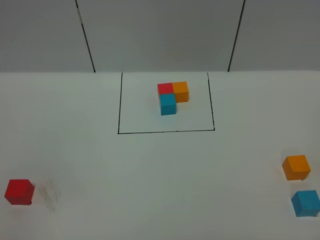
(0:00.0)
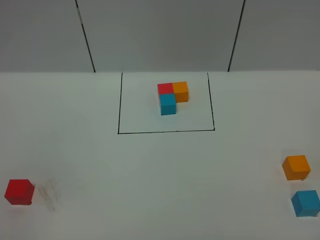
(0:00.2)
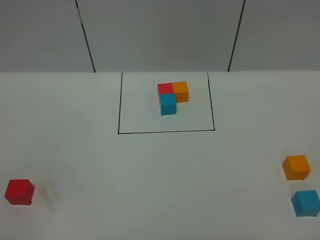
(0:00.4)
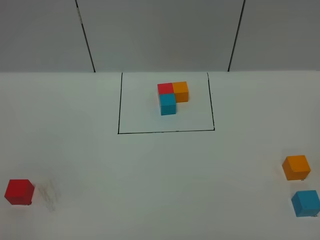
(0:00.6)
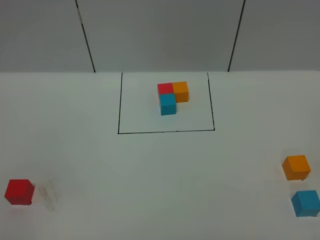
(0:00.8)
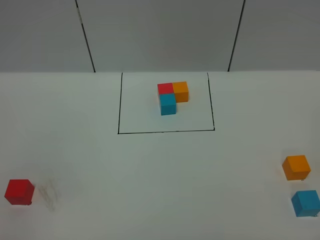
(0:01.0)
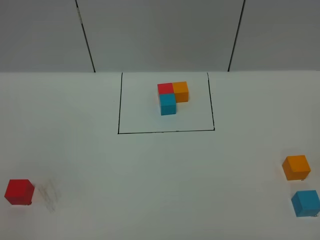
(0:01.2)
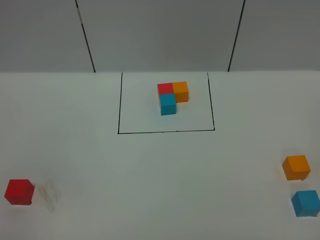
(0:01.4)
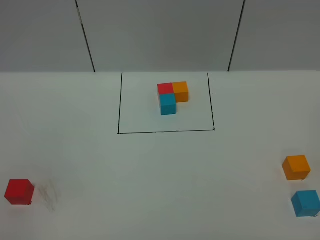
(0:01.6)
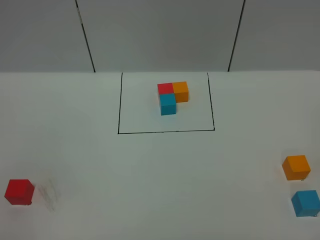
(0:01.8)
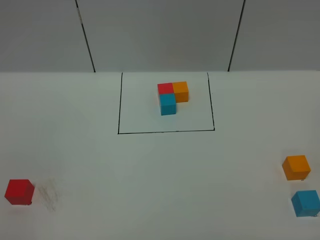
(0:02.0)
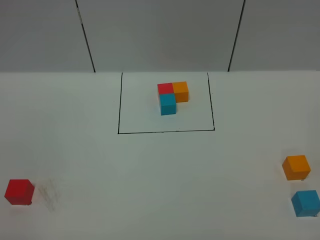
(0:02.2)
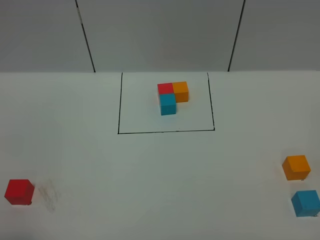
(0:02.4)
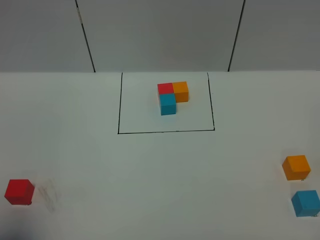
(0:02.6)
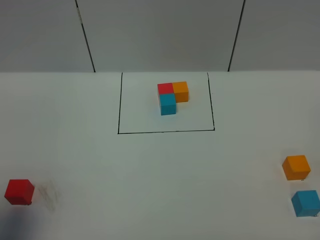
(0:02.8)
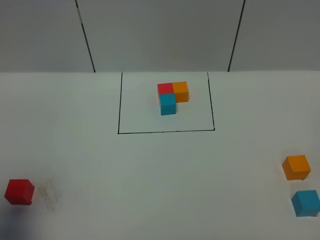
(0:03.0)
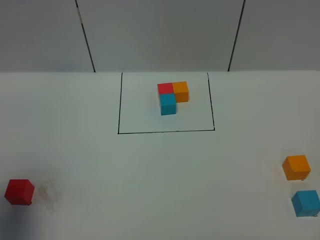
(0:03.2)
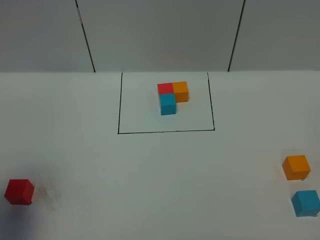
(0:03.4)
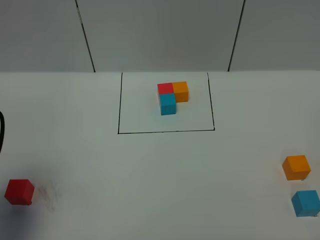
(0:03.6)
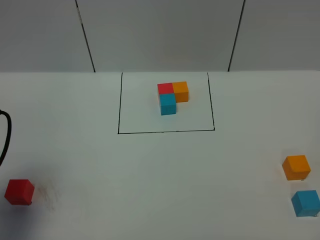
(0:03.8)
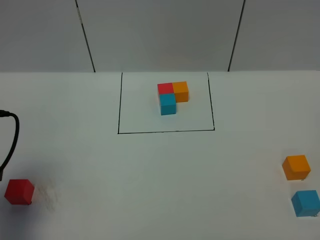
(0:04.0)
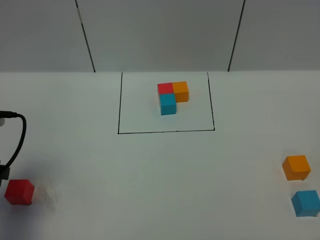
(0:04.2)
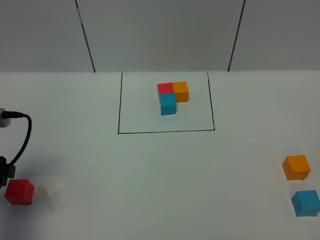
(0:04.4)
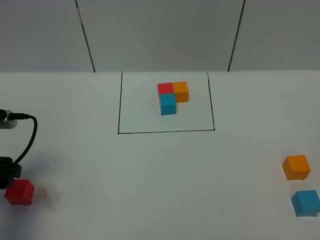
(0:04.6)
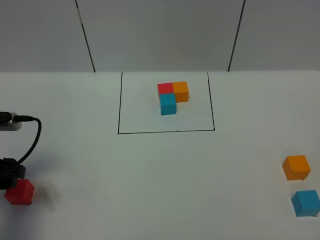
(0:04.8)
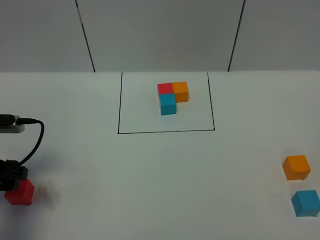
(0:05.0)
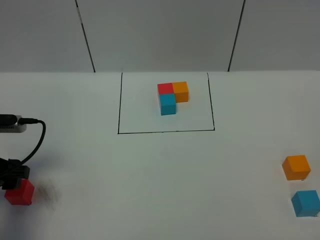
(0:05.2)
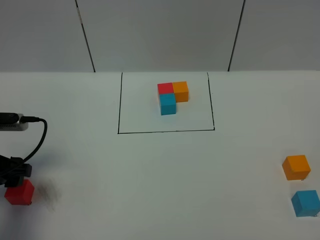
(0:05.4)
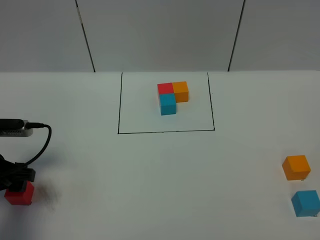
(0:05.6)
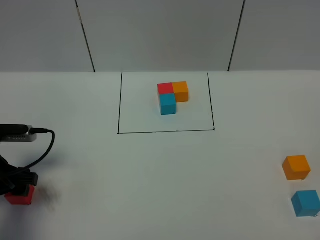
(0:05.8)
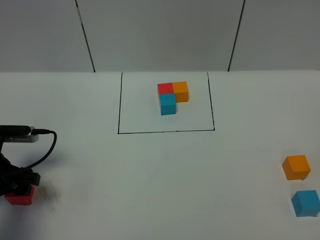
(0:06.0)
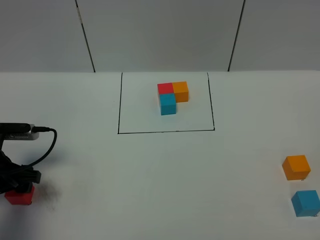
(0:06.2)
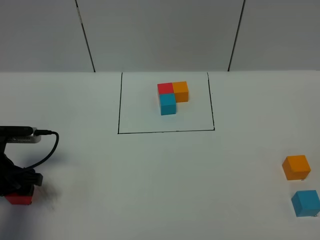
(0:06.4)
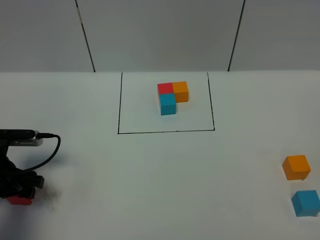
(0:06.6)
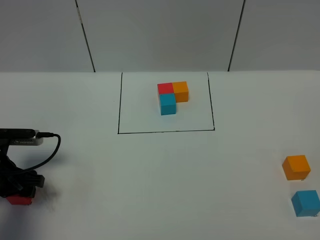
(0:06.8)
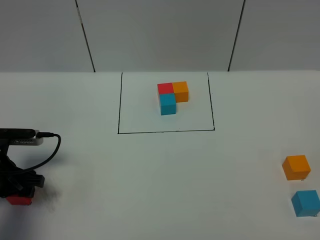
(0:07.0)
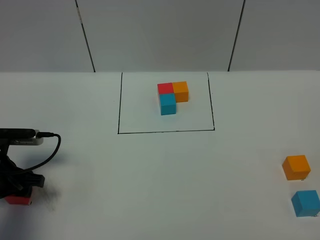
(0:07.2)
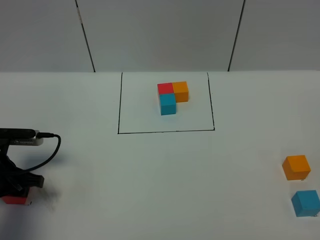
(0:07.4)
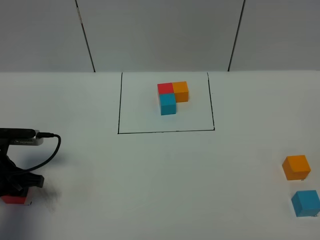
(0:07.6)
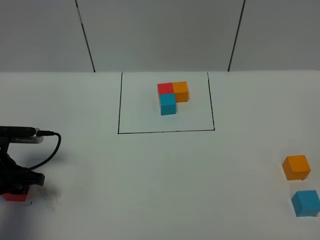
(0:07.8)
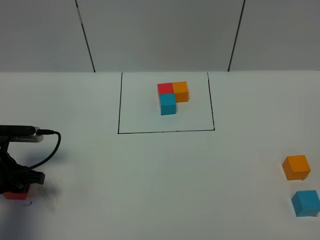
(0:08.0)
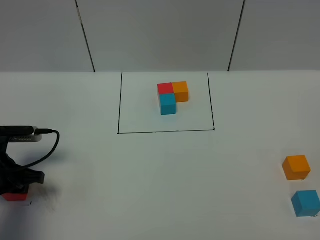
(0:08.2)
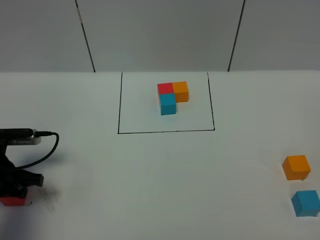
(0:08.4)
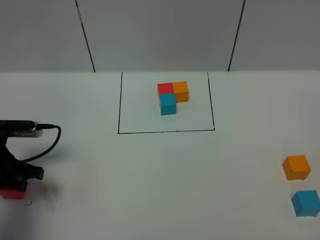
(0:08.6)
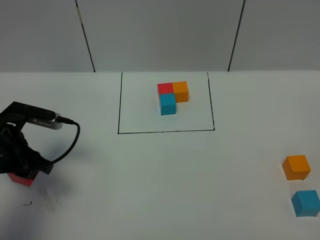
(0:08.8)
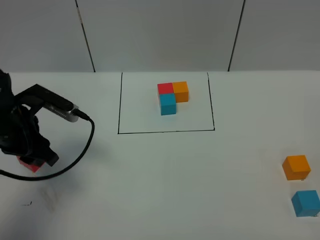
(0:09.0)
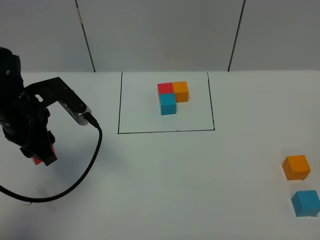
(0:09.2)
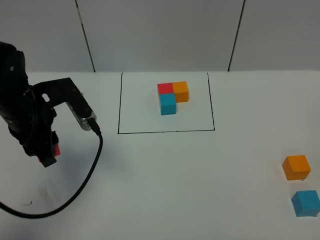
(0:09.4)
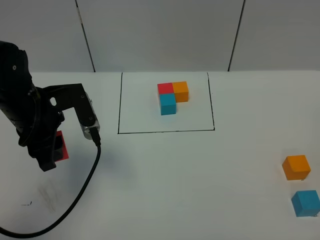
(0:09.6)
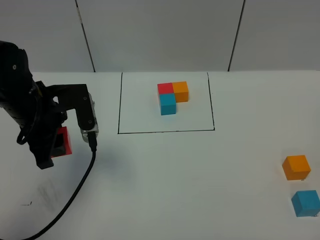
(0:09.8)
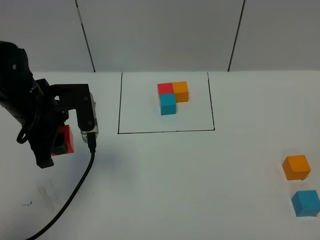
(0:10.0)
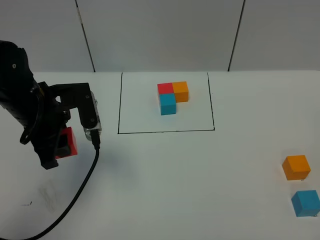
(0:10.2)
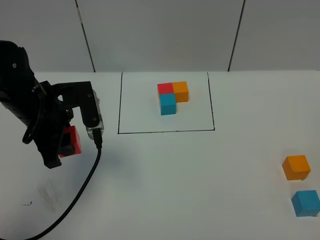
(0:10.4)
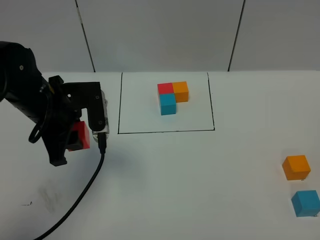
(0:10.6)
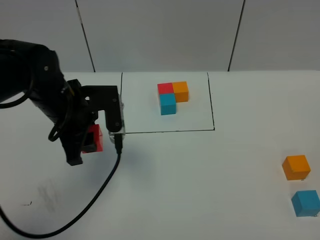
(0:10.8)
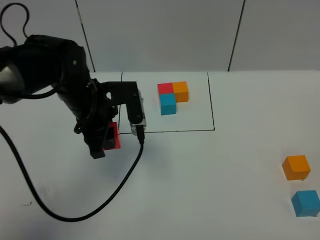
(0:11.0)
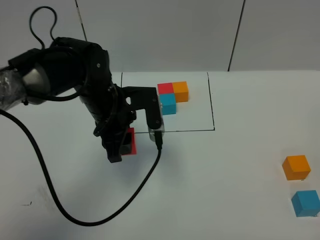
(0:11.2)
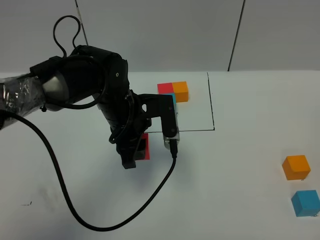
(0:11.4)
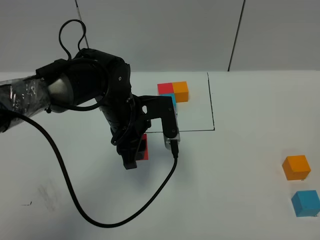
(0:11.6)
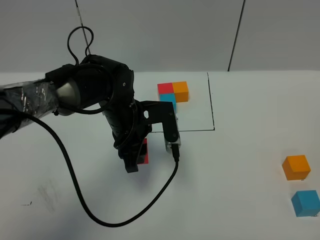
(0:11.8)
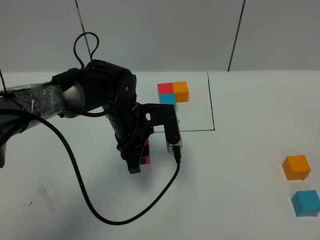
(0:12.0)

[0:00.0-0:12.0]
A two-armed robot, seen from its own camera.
Task of the whole recording: According to the building block template in front, assemble the scattered blocks together.
0:00.0 to 0:01.6: Both grippers stay about where they are.
0:01.6 to 0:03.0: The left gripper goes some 15 cm forward.
0:03.0 to 0:04.4: The left gripper heads downward and forward, covering roughly 10 cm.
0:04.4 to 0:06.0: The left gripper is displaced downward by approximately 10 cm.
0:06.0 to 0:07.6: The left gripper closes its fingers.
0:07.6 to 0:09.0: The left gripper shifts roughly 10 cm upward and to the right.
0:09.0 to 0:10.4: The left gripper ends up roughly 5 cm from where it was.
0:10.4 to 0:12.0: The left gripper is displaced to the right and downward by roughly 15 cm.

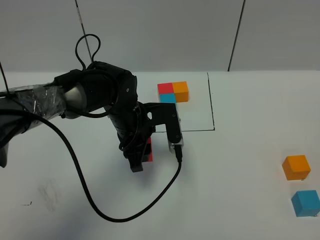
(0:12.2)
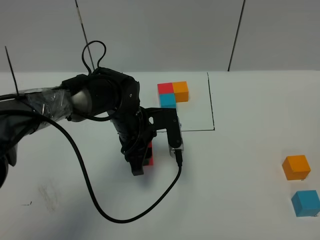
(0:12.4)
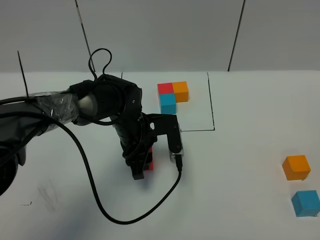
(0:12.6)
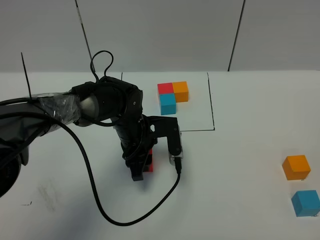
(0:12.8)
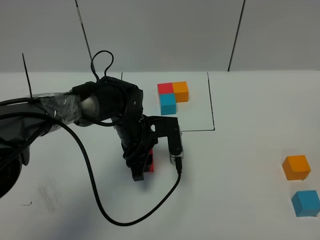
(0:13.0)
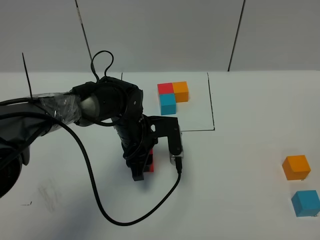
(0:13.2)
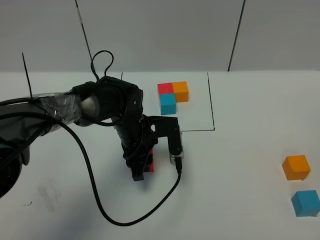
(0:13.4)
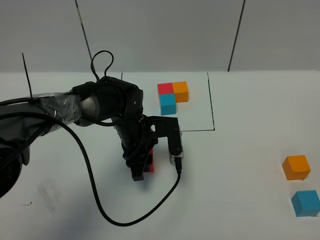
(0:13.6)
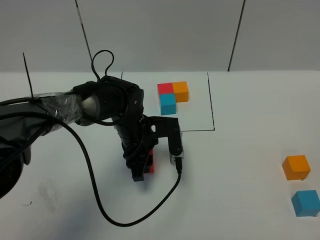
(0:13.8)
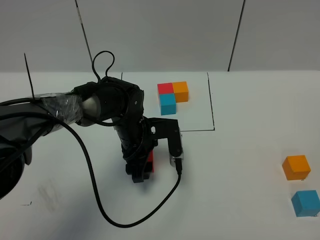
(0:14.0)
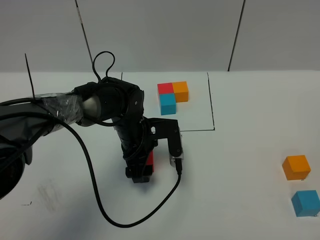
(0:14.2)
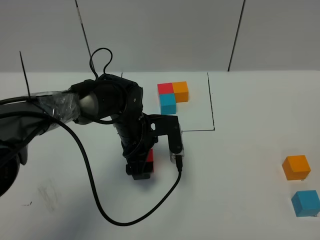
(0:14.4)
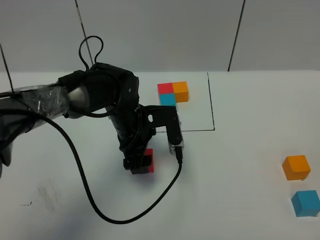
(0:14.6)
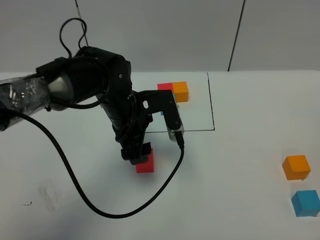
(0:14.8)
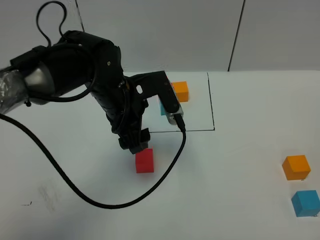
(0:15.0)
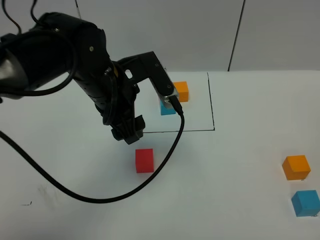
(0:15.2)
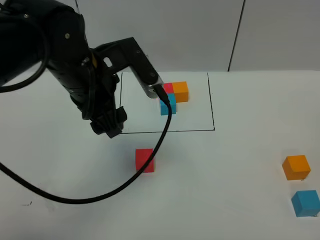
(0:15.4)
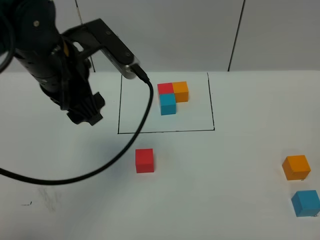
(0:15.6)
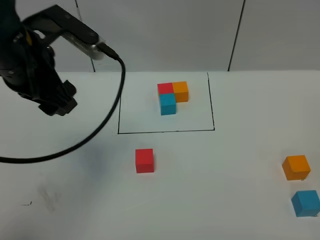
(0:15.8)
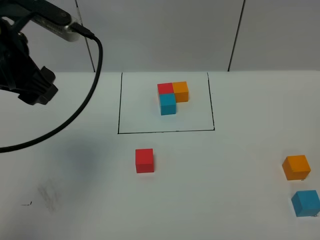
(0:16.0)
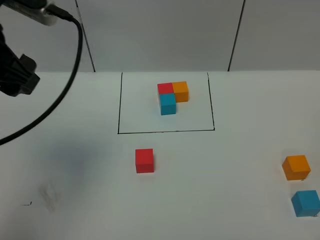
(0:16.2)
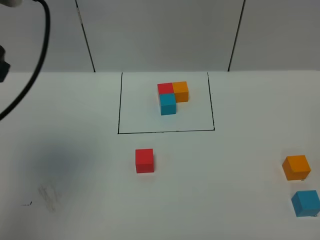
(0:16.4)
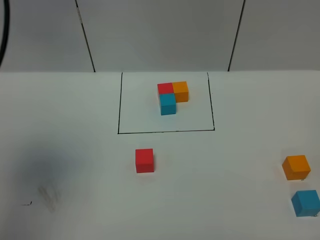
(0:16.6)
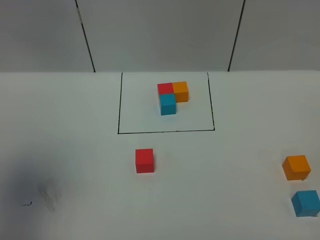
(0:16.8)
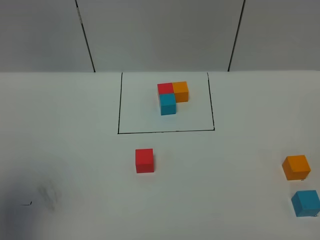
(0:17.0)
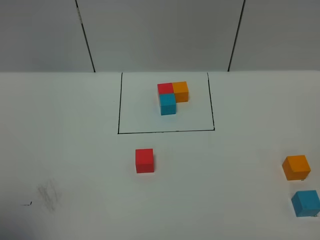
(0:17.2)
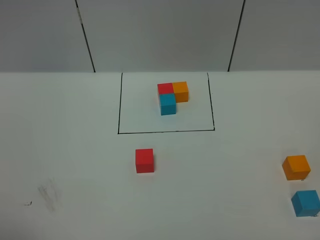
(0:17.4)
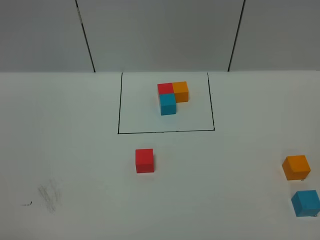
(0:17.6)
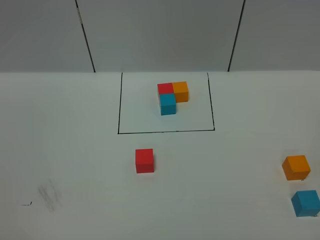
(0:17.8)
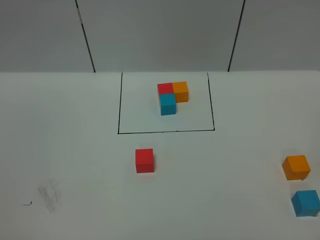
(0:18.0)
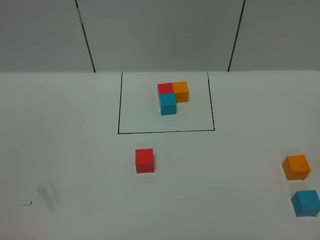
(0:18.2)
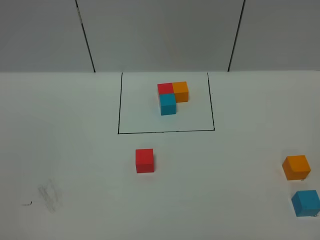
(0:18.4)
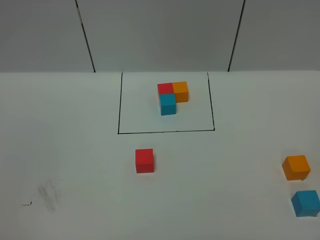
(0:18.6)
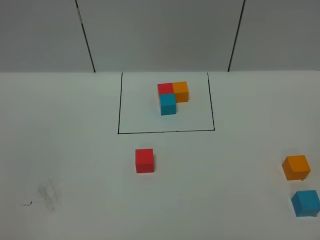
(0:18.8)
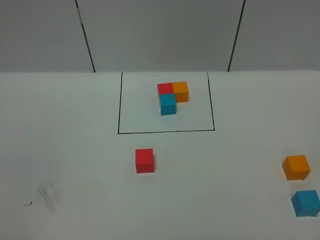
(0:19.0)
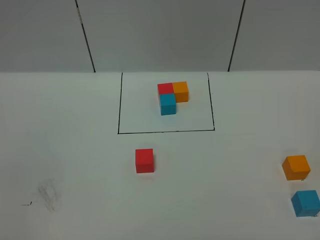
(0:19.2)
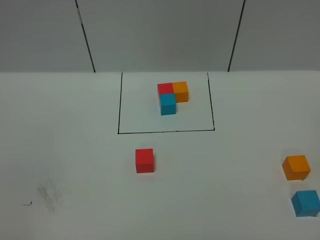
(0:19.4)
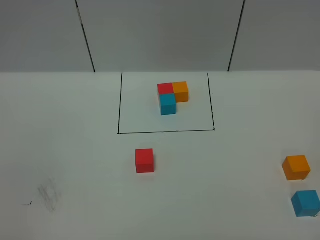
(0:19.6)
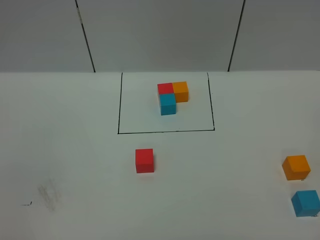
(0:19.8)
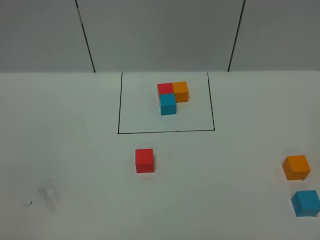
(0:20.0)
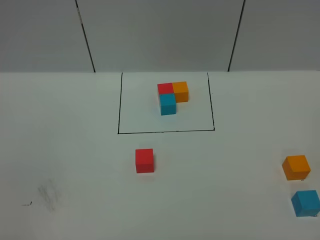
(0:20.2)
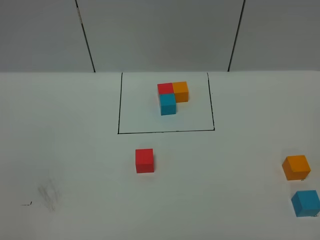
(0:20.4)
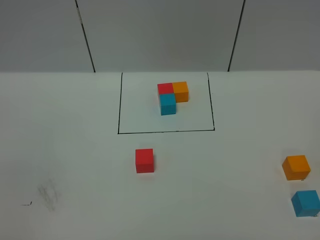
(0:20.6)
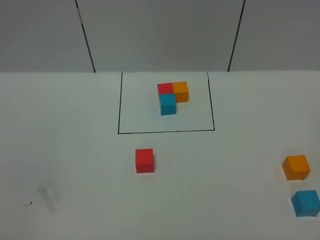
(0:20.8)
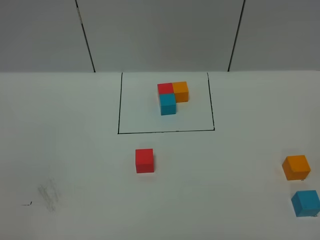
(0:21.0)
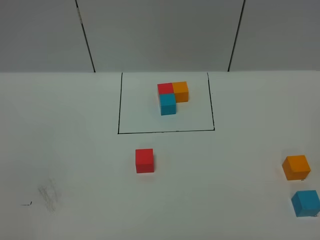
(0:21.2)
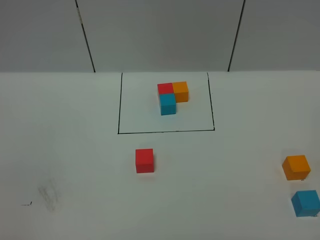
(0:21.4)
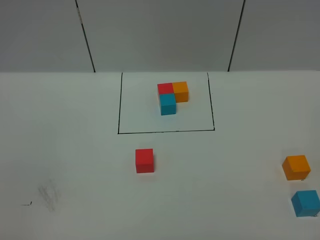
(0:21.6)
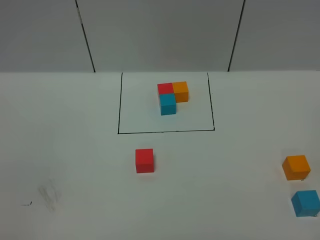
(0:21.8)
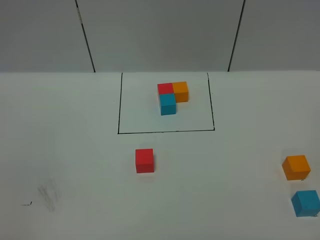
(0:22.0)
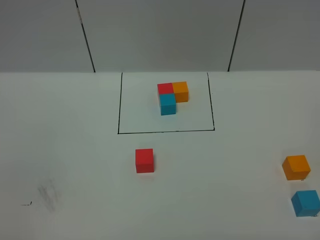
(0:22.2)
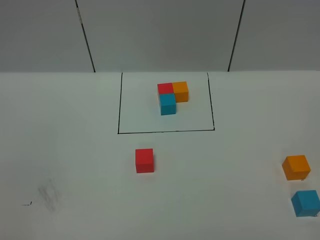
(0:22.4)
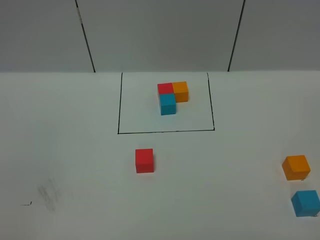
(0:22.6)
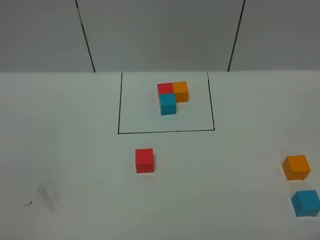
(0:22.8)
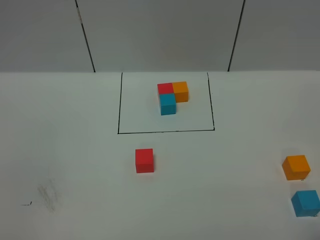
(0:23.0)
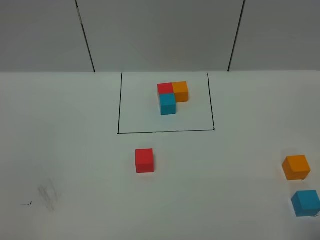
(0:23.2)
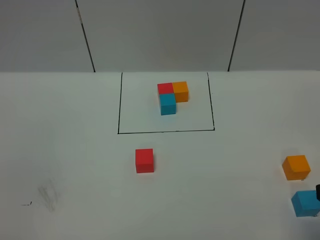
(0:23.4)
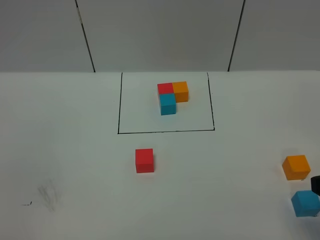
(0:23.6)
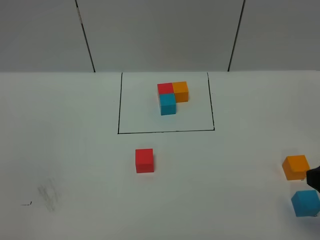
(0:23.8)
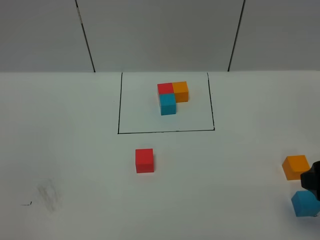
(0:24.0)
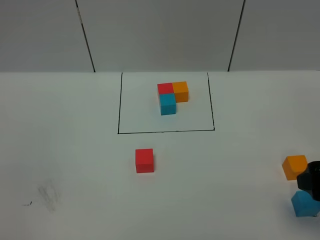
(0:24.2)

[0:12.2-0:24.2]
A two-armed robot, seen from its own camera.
Task of the whole recording: According to the building block template in front, assemble the scattered blocks together.
Step, 0:12.2 to 0:15.0: Put the red cube in the center of the table.
0:12.2 to 0:13.8: The grippers make only small movements.
0:13.8 to 0:15.2: The left gripper is displaced upward by roughly 15 cm, and opens its fingers.
0:15.2 to 0:16.6: The left gripper heads to the left, upward and backward, covering approximately 25 cm.
0:16.6 to 0:18.2: The left gripper goes about 30 cm backward.
0:19.8 to 0:21.2: The two grippers keep their place.
0:22.6 to 0:24.2: The right gripper heads forward, covering roughly 15 cm.
